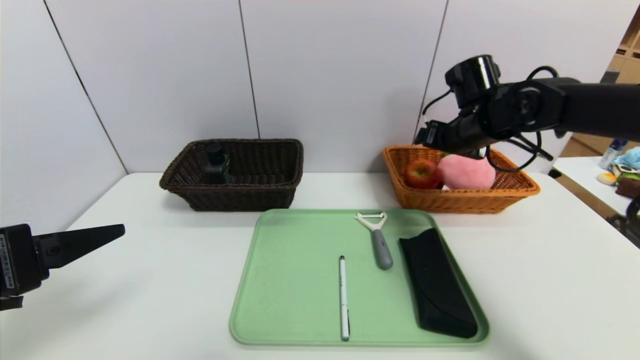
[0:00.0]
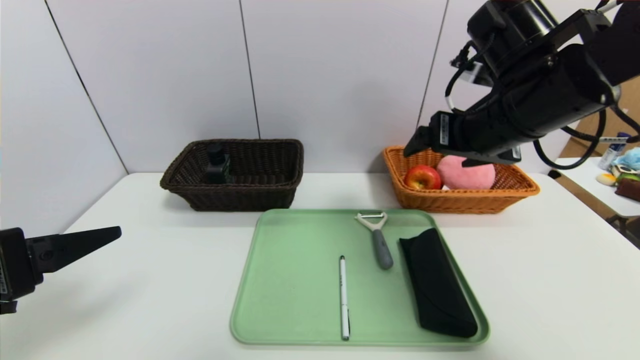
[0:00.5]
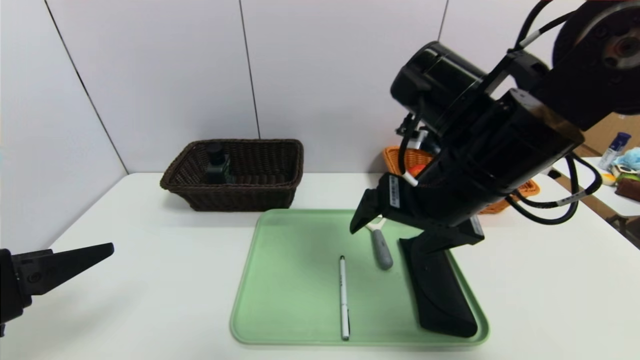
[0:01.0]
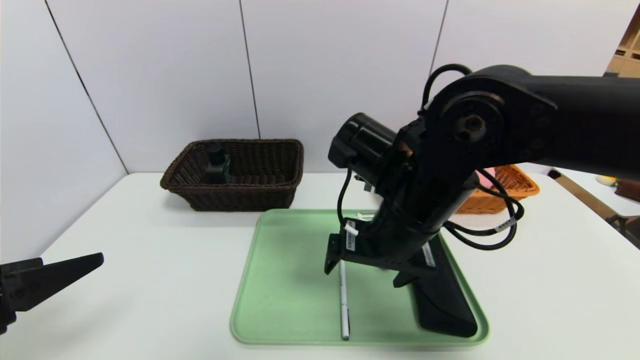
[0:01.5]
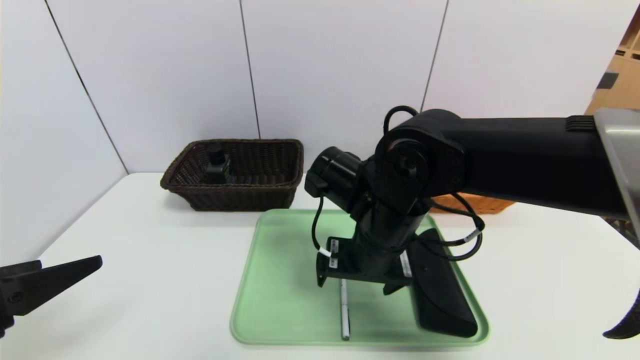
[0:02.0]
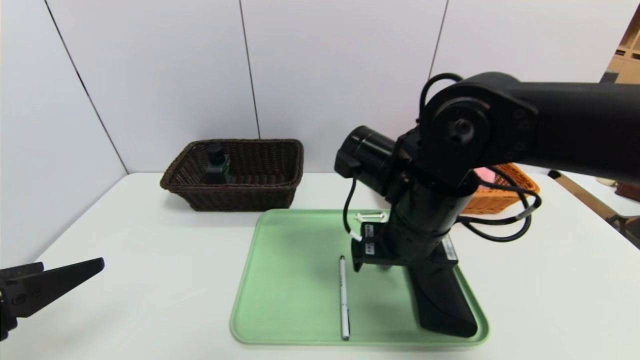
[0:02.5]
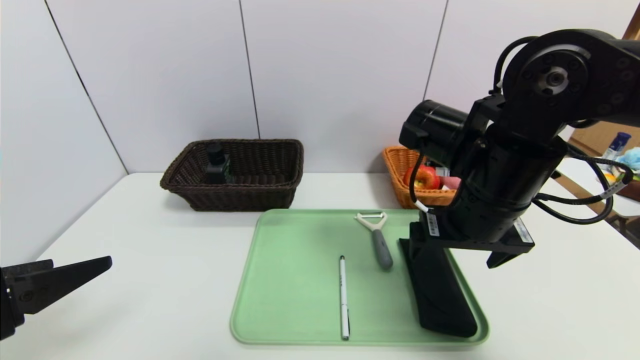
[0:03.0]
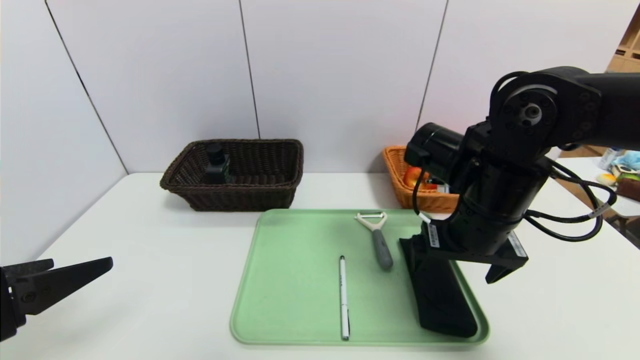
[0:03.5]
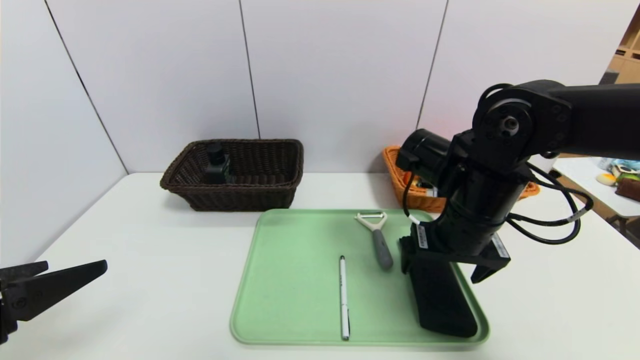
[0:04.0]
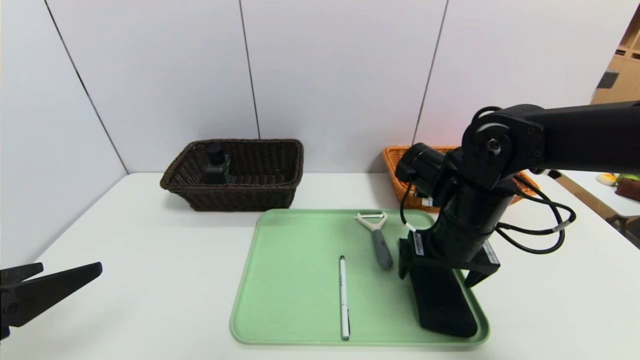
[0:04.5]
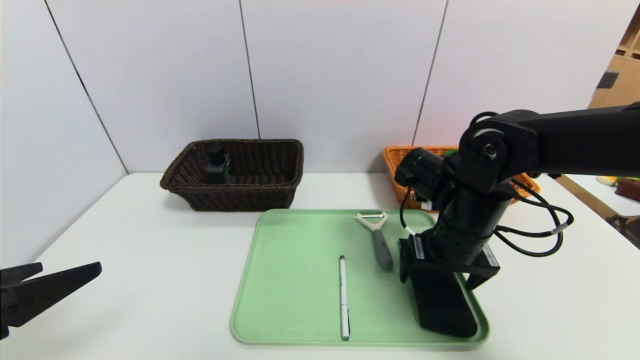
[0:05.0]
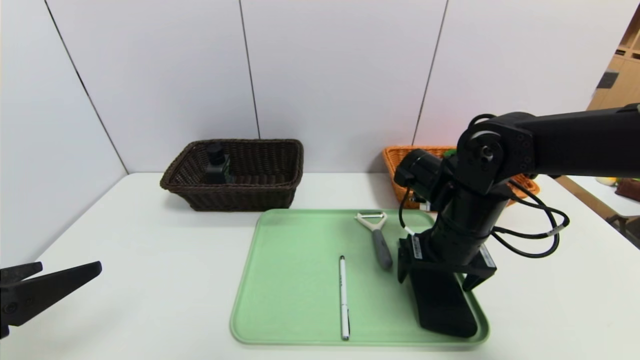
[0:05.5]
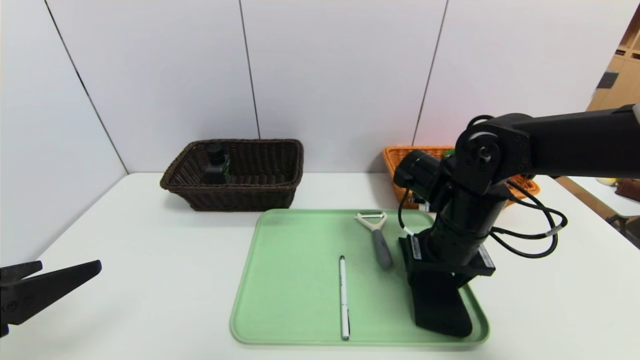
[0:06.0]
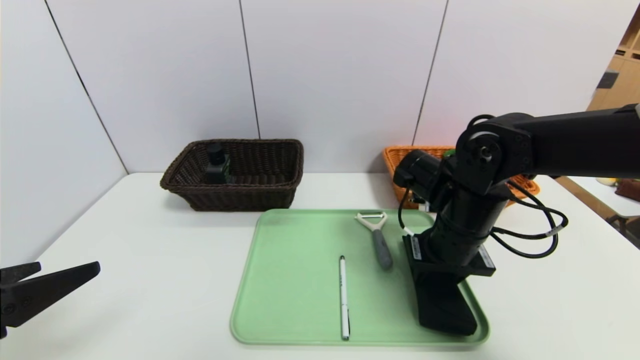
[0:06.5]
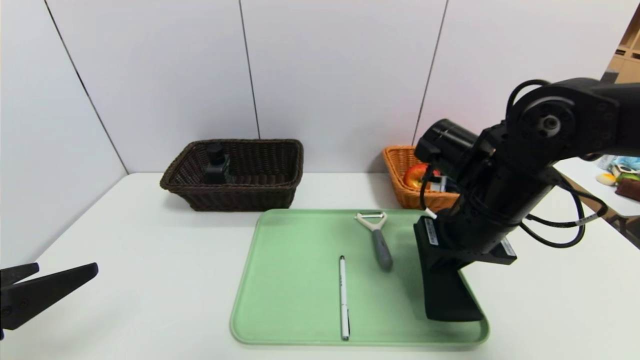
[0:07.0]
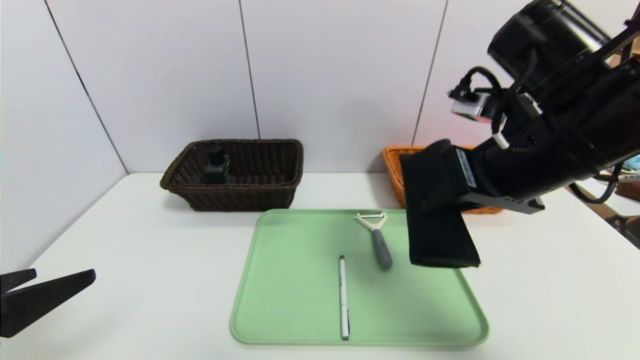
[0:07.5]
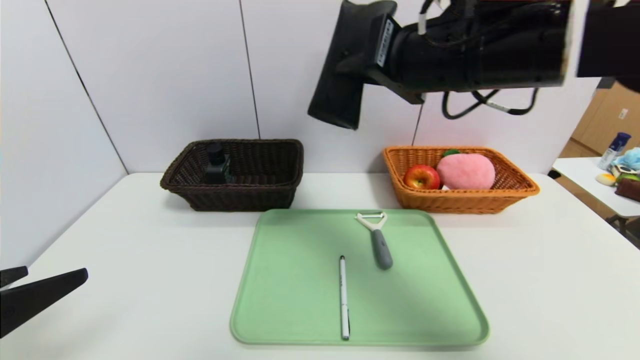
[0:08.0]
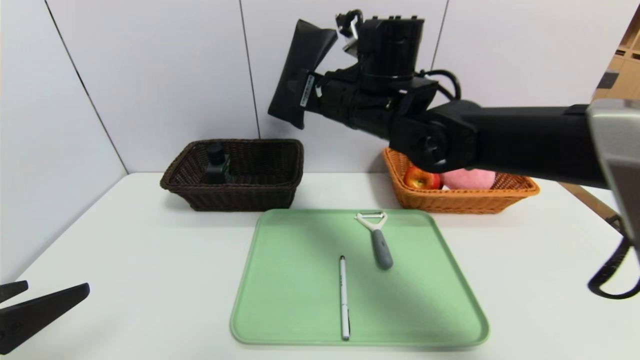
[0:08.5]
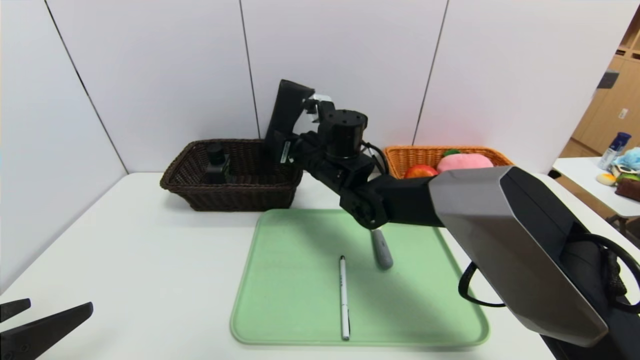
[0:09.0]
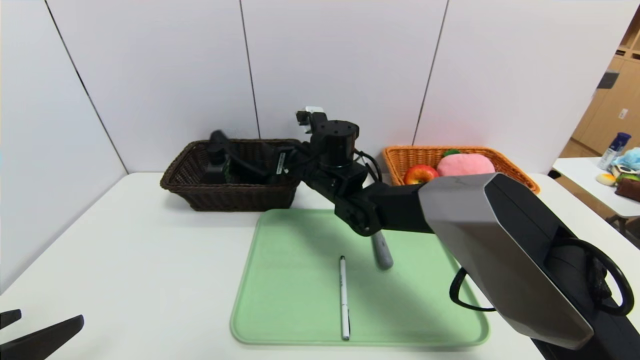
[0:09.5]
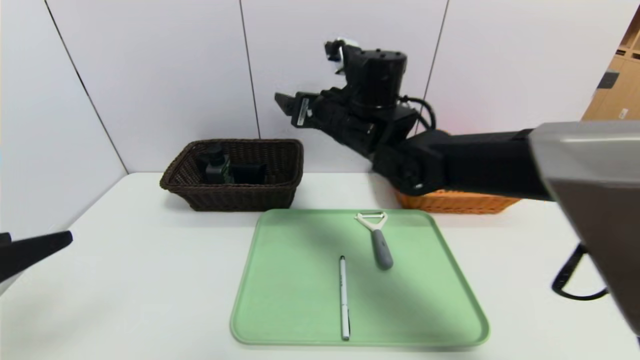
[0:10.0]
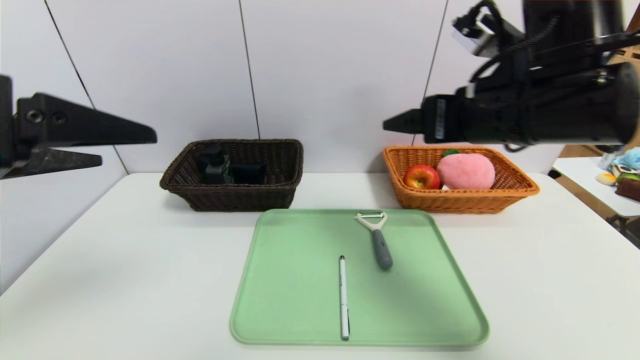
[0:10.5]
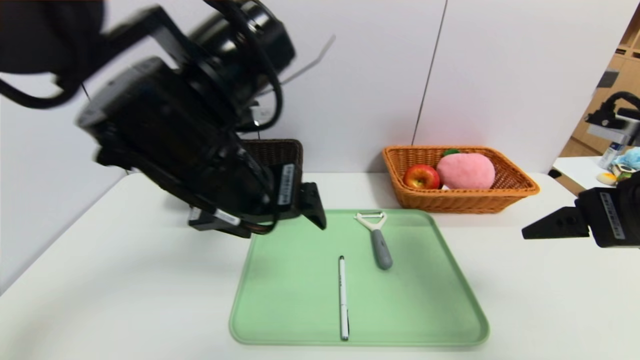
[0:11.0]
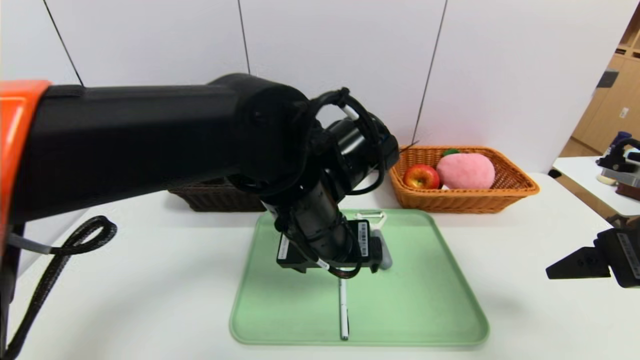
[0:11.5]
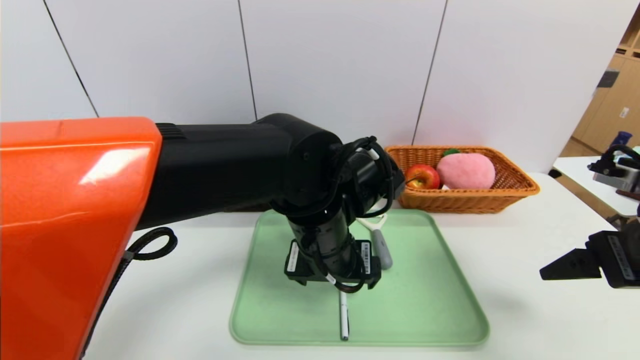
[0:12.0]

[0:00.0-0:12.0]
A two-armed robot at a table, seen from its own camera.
Task of the whole recording: place the food in the right basket with the right gripper, and place the non food items in the left basket with the left gripper.
0:00.0 to 0:02.0: The right gripper goes some 25 cm to the left and backward.
0:02.0 to 0:04.0: The right gripper moves to the right, roughly 10 cm.
0:04.0 to 0:06.0: The right gripper closes.
0:06.0 to 0:08.0: The right gripper moves upward, about 20 cm, and closes.
0:08.0 to 0:10.0: The right gripper moves downward, forward and to the left, roughly 15 cm, and opens.
0:10.0 to 0:12.0: The right gripper is displaced to the right and backward by approximately 30 cm; the left gripper travels to the right and forward by approximately 35 cm.

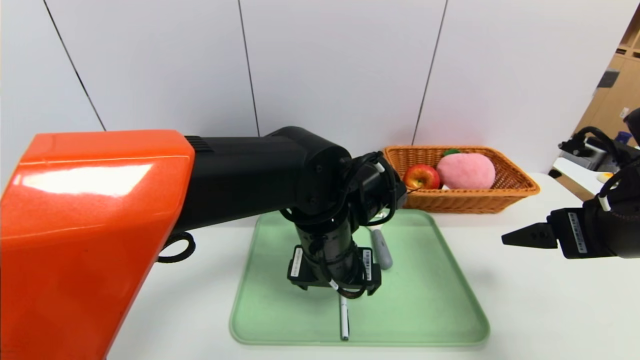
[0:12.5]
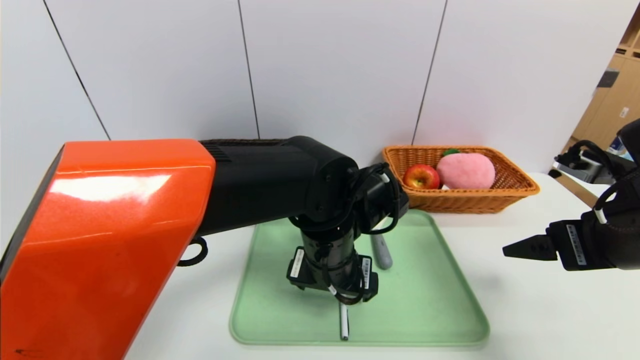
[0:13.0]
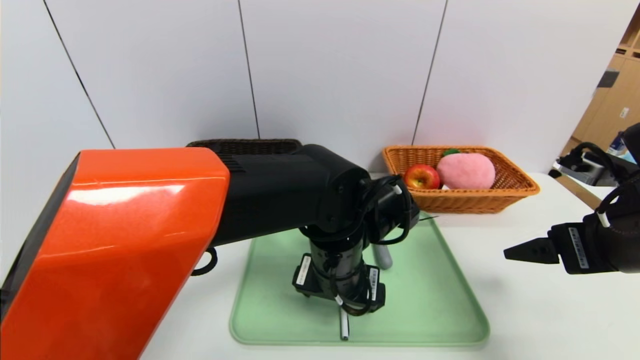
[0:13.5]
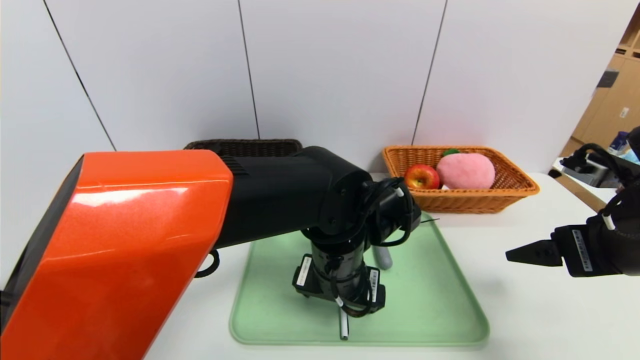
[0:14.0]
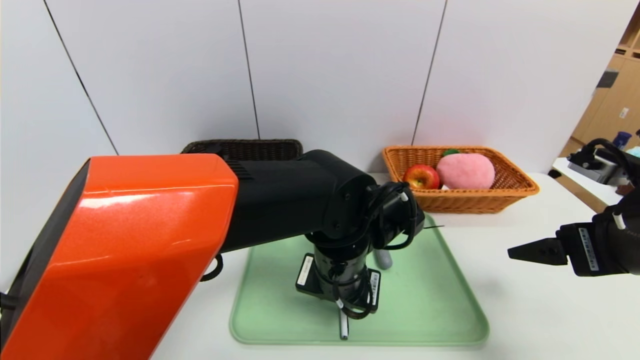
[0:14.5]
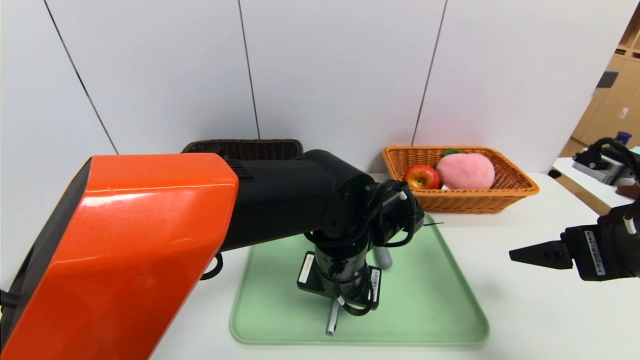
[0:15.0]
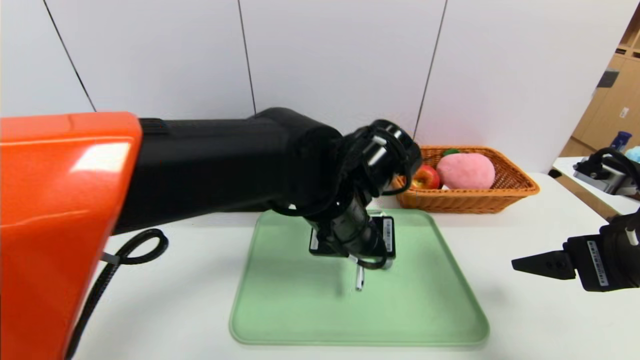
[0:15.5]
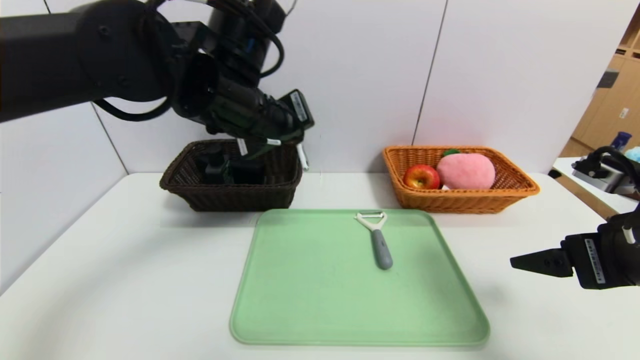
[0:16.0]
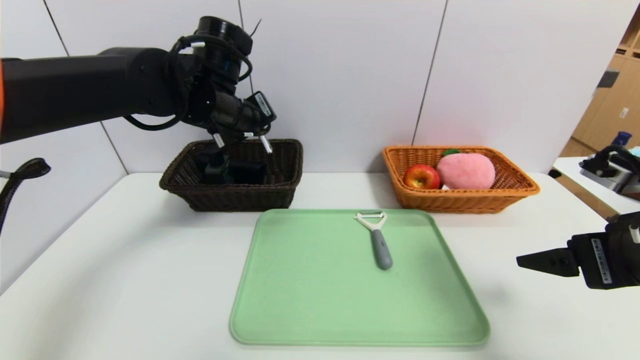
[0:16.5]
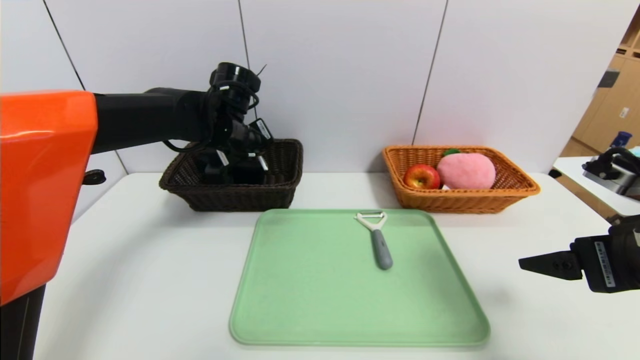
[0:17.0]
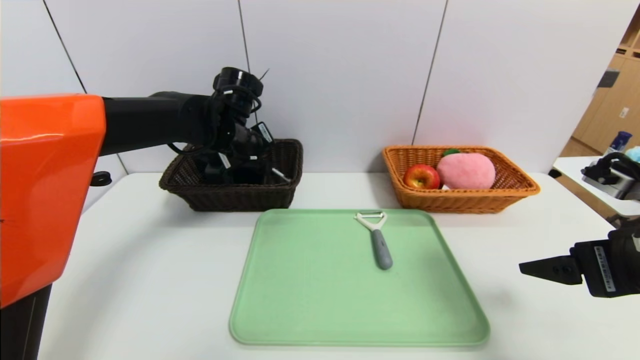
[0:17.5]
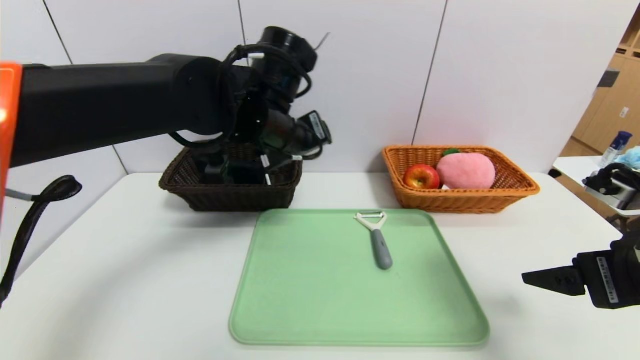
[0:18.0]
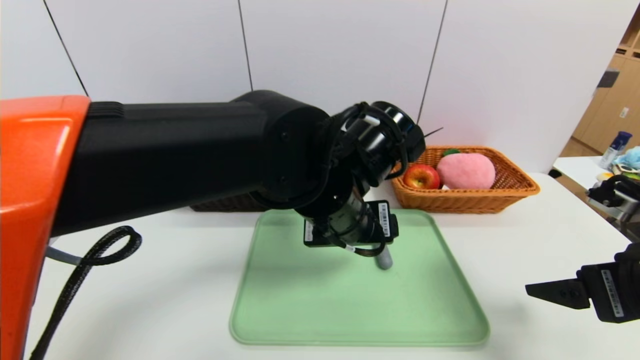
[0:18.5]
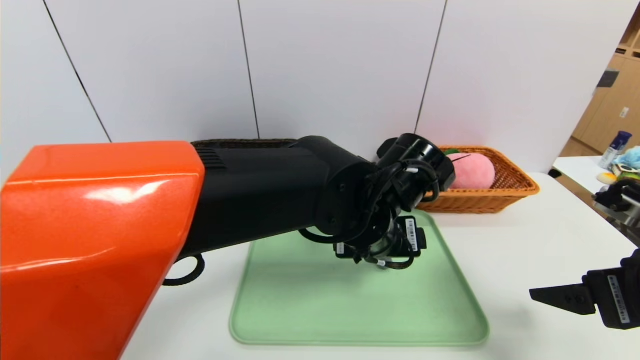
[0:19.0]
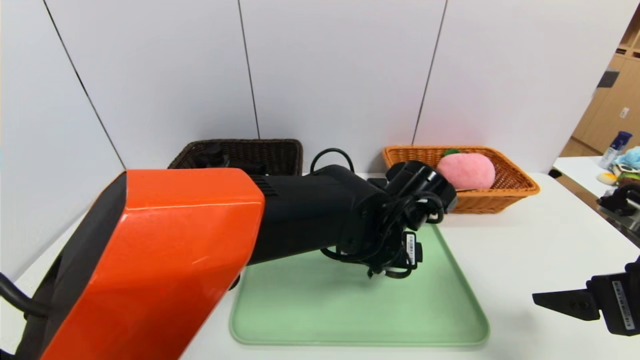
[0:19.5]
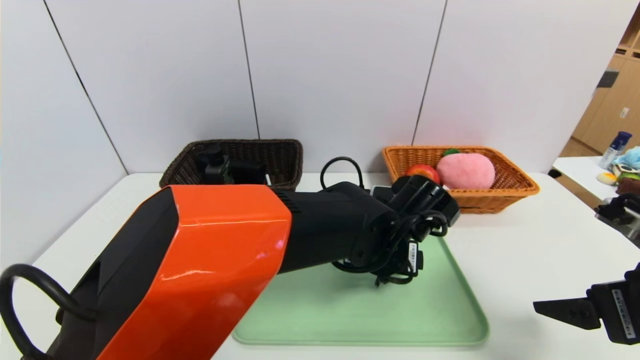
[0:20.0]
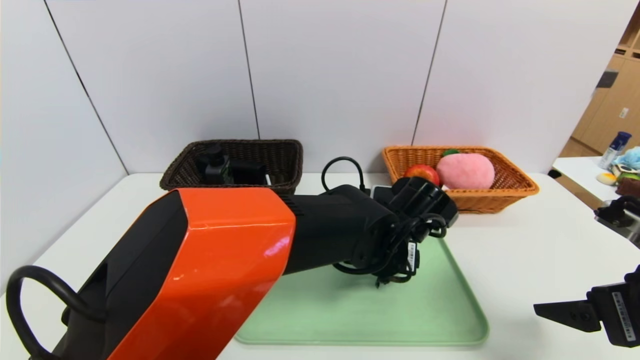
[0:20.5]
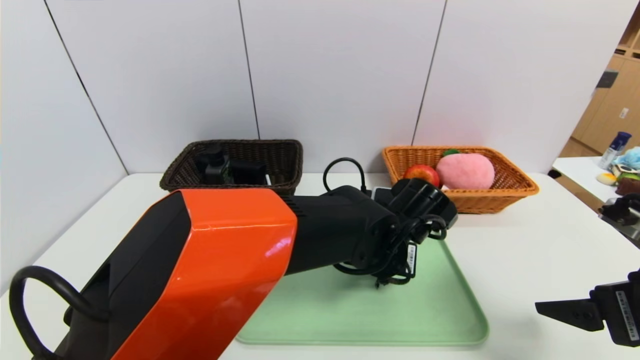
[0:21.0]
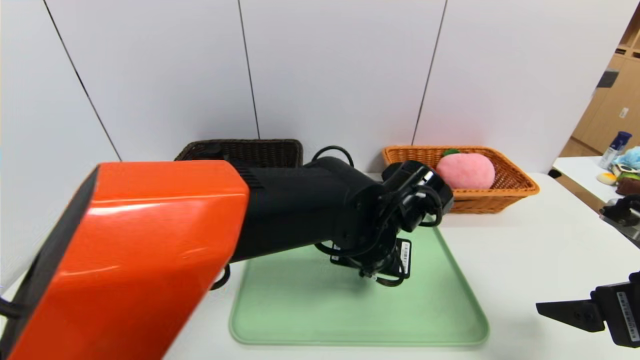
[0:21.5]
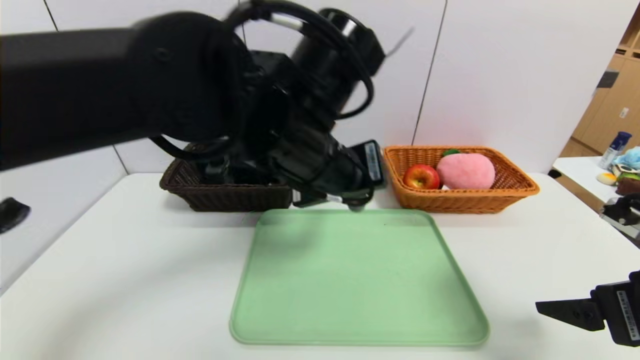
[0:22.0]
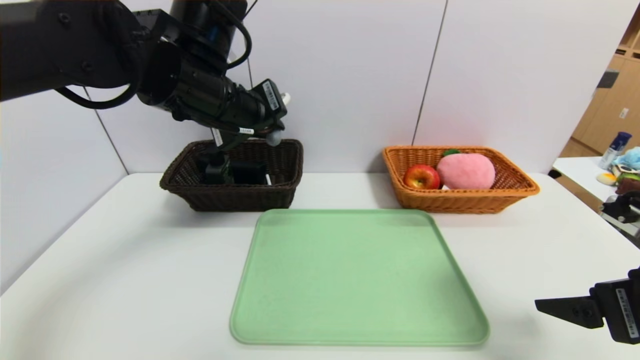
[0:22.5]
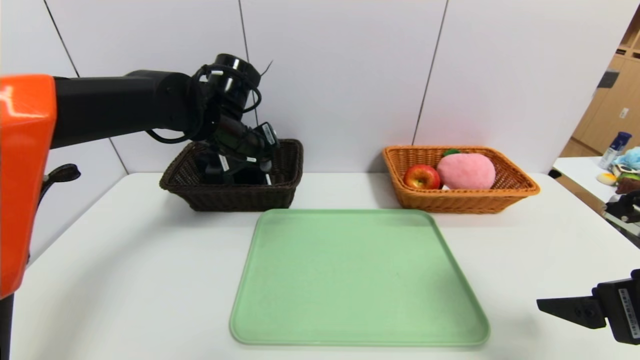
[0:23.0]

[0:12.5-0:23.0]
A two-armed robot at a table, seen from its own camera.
Task of the whole recording: place the food in the right basket with the right gripper, and place the non food items in the left basket with the left gripper.
Step, 0:12.5 to 0:17.5: Grasp the black marker and put it in the left basket.
0:12.5 to 0:14.5: The left gripper closes up.
0:14.5 to 0:16.5: The left gripper goes some 25 cm to the left, upward and forward, and closes its fingers.
0:16.5 to 0:19.0: The left gripper is displaced to the right, backward and downward by approximately 25 cm, and opens up.
0:19.0 to 0:21.0: The left gripper is displaced downward by about 5 cm, and closes its fingers.
0:21.0 to 0:23.0: The left gripper travels to the left, upward and forward by approximately 25 cm.
